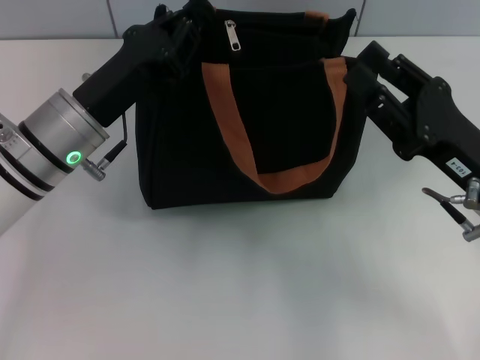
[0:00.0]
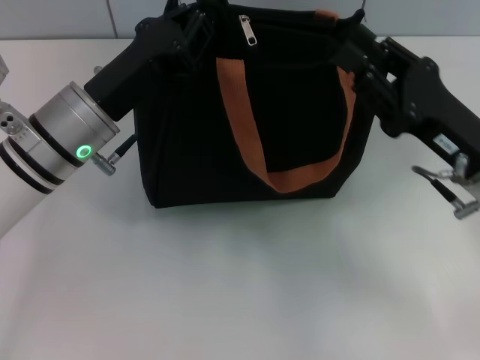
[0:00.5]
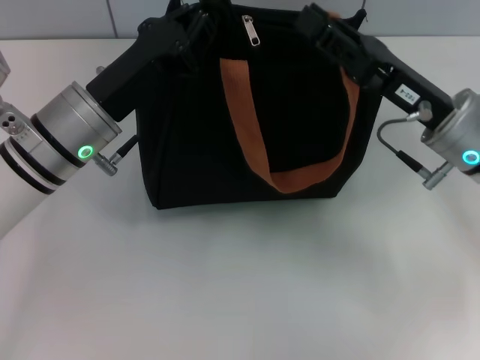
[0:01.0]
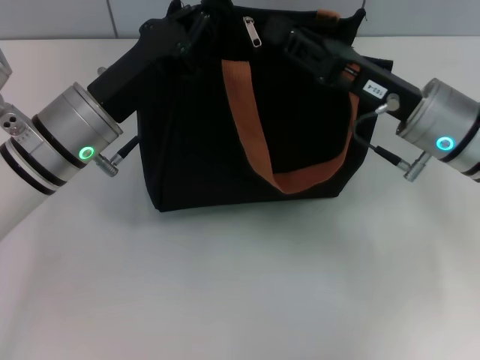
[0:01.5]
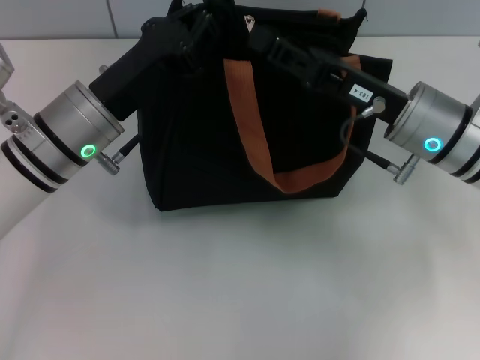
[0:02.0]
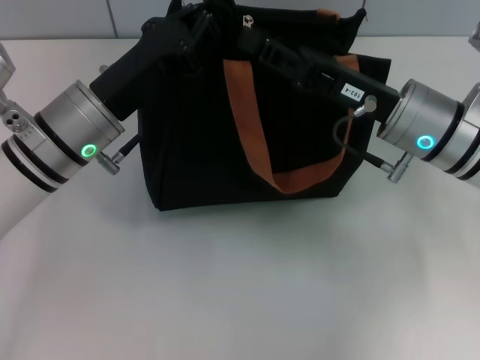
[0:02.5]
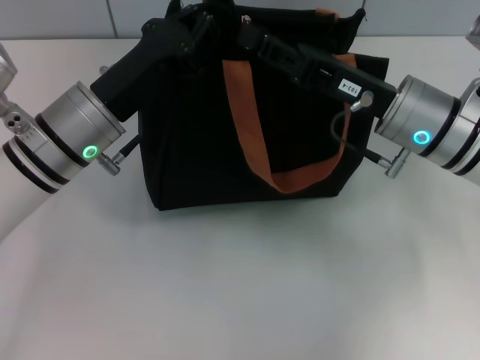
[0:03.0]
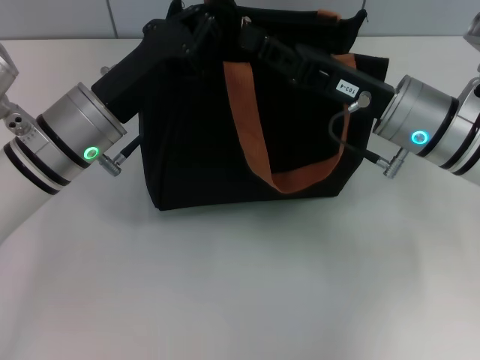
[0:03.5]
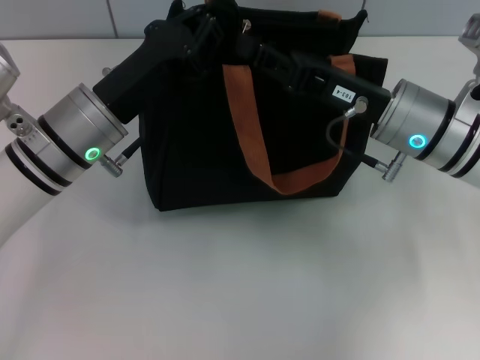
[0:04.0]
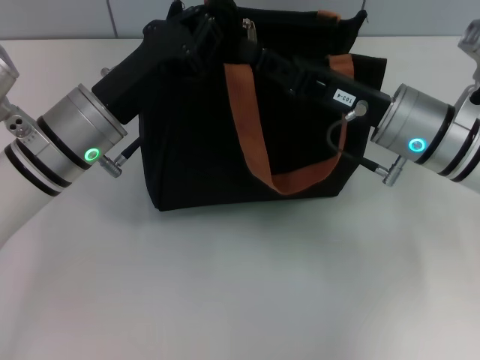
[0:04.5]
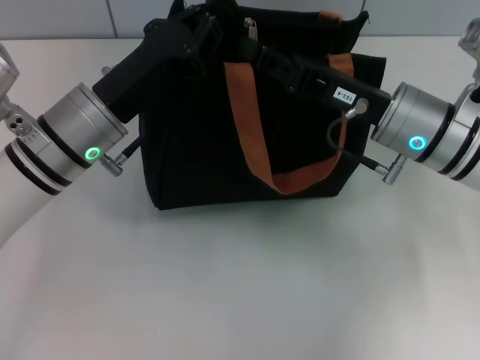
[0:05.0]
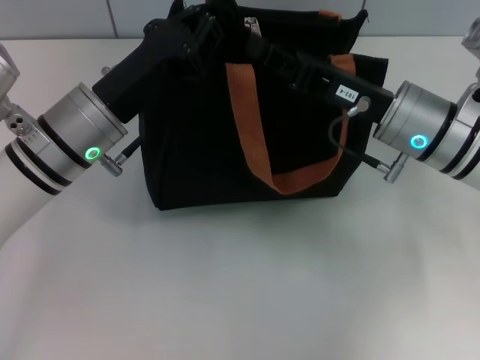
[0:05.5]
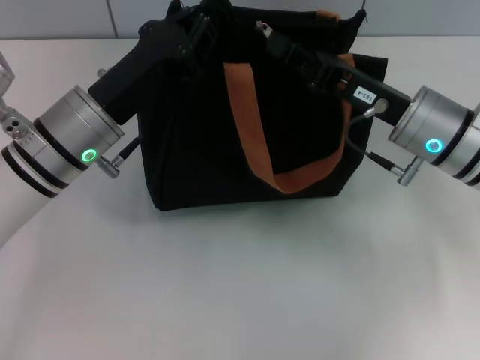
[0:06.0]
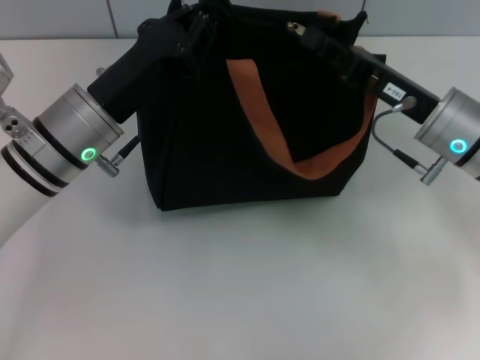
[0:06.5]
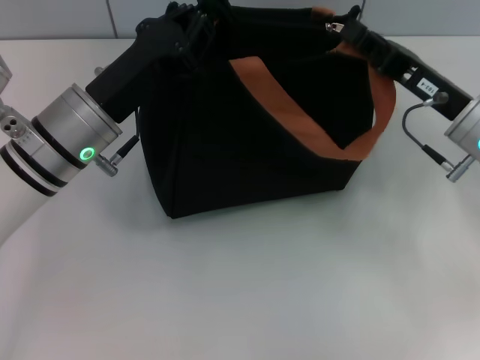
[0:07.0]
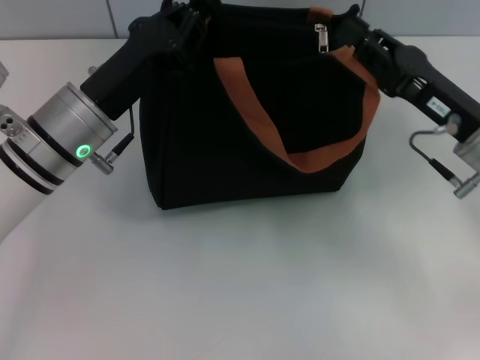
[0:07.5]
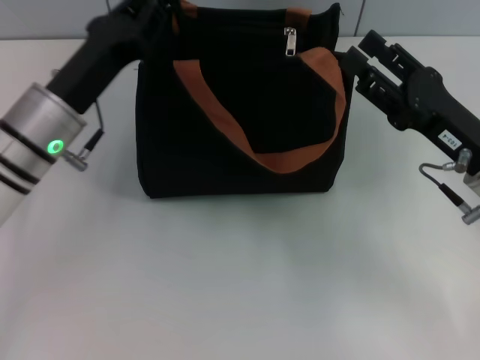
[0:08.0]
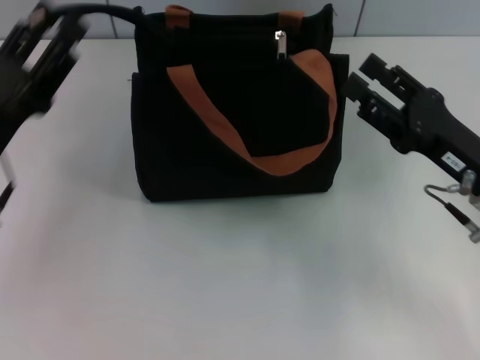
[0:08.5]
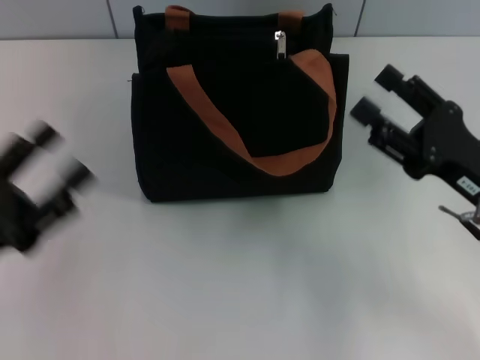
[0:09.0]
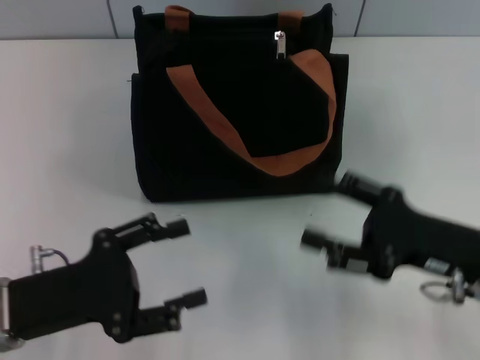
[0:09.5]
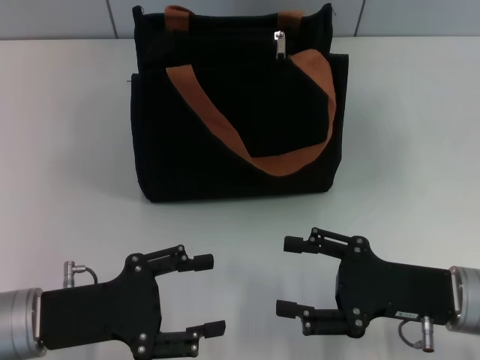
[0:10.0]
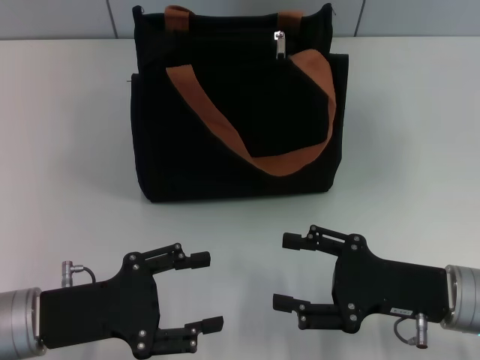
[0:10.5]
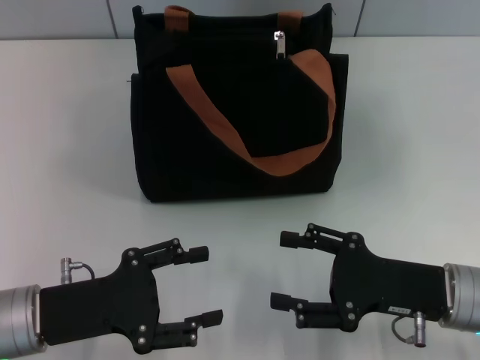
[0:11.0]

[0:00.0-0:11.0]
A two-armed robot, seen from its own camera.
Step, 0:00.0 to 0:07.5: Pull up the zipper with your right hand.
Step, 0:08.0 to 0:08.5: Grab the zipper with your left hand.
0:00.0 to 0:02.0: The right gripper goes approximately 10 cm forward and to the left.
0:02.0 to 0:05.5: Neither gripper changes place.
0:05.5 to 0:07.5: The right gripper travels to the right by some 5 cm.
0:07.5 to 0:09.0: The right gripper travels backward by some 5 cm, and opens up, while the left gripper moves backward and to the left, some 20 cm, and opens its fingers.
0:09.0 to 0:11.0: The left gripper travels to the right by about 5 cm. The right gripper changes place by roughly 5 cm.
